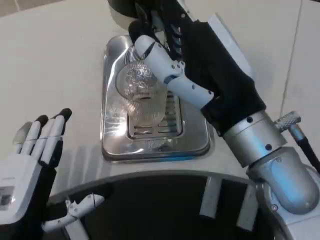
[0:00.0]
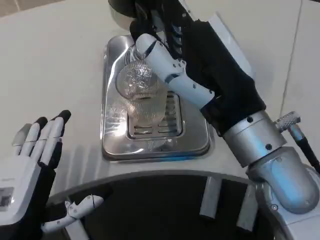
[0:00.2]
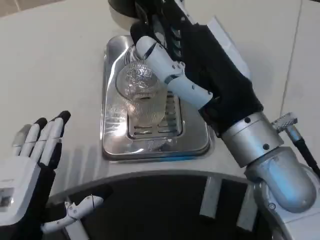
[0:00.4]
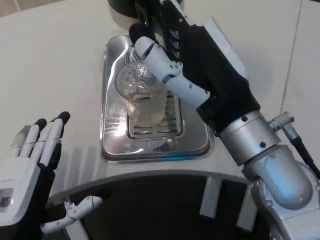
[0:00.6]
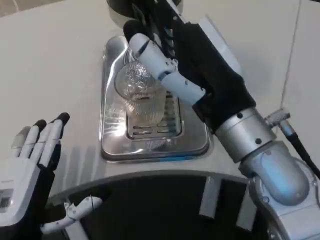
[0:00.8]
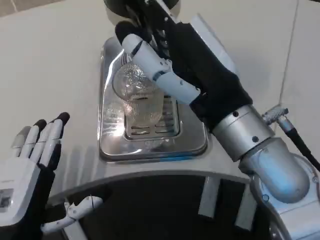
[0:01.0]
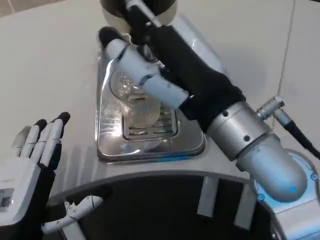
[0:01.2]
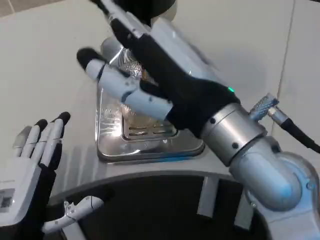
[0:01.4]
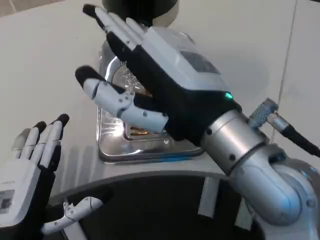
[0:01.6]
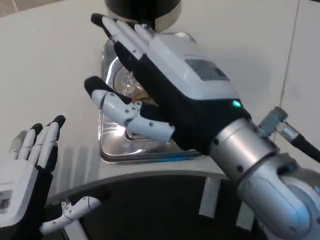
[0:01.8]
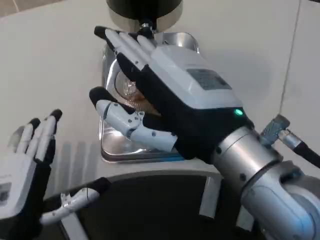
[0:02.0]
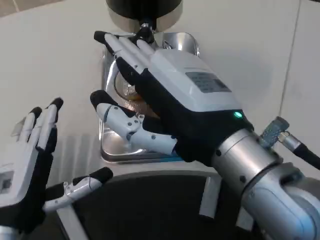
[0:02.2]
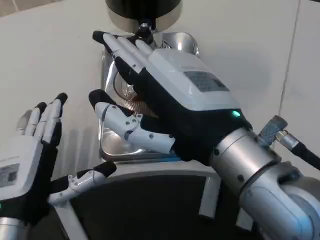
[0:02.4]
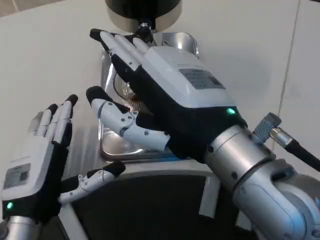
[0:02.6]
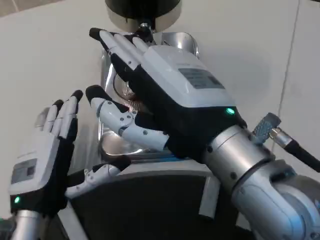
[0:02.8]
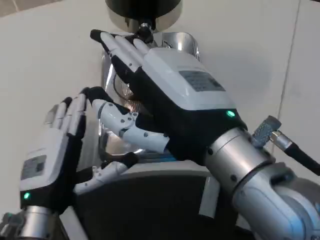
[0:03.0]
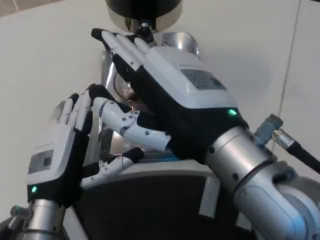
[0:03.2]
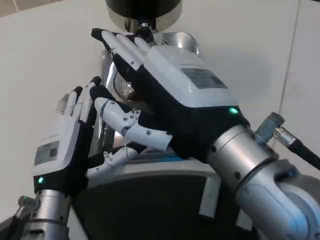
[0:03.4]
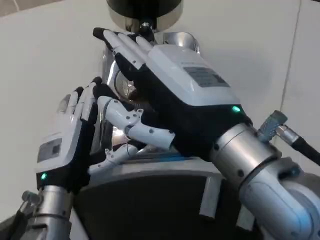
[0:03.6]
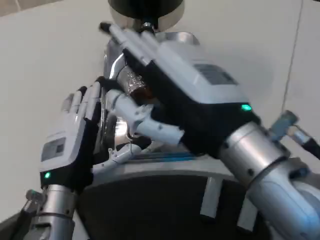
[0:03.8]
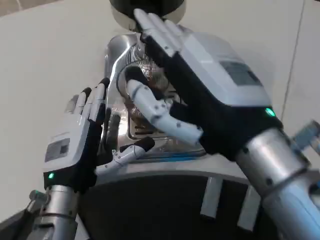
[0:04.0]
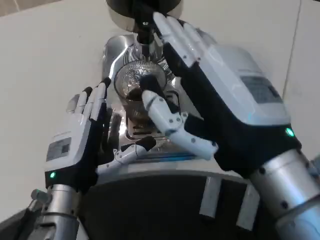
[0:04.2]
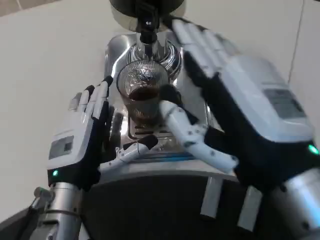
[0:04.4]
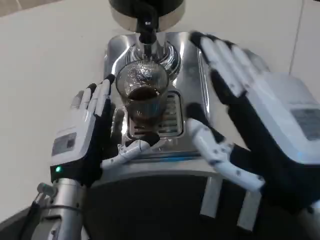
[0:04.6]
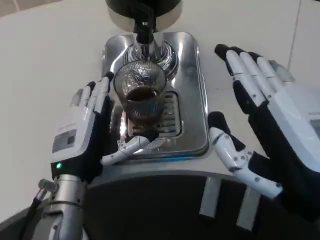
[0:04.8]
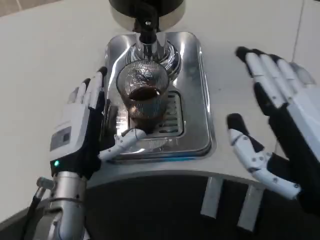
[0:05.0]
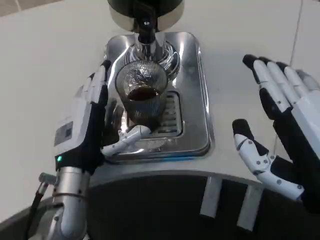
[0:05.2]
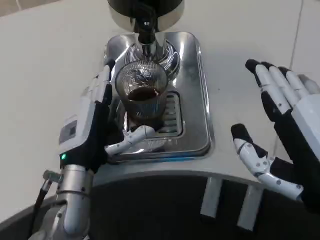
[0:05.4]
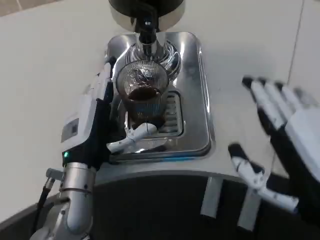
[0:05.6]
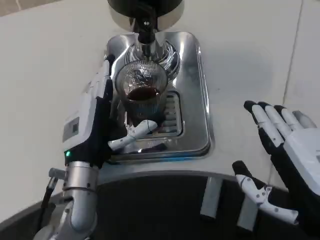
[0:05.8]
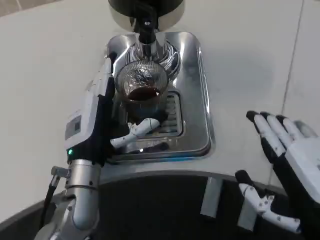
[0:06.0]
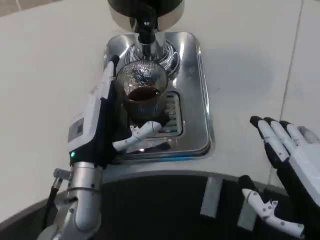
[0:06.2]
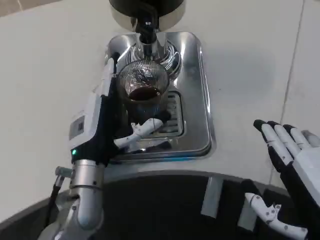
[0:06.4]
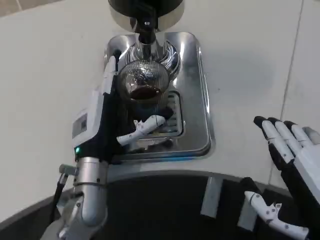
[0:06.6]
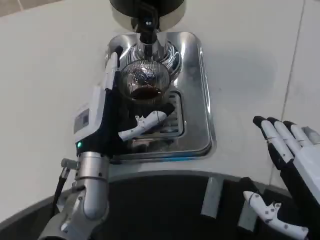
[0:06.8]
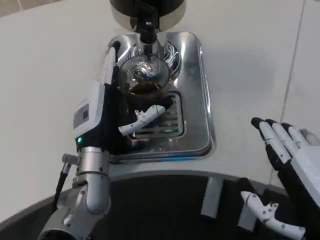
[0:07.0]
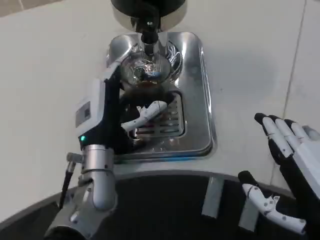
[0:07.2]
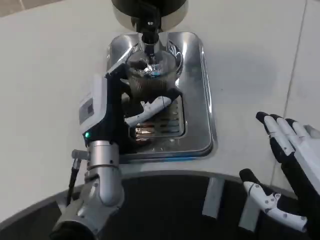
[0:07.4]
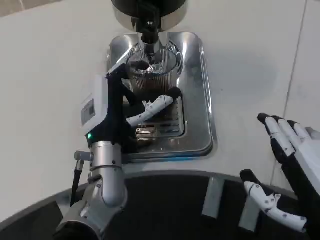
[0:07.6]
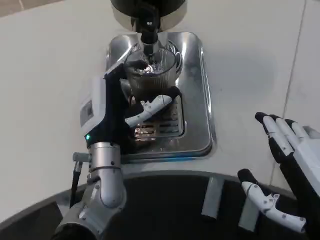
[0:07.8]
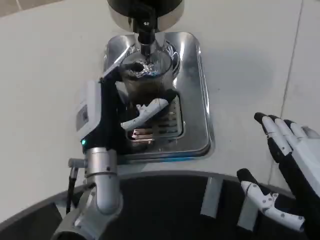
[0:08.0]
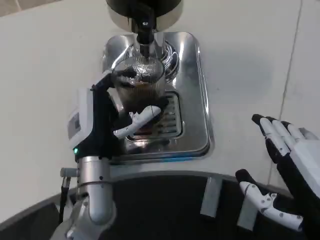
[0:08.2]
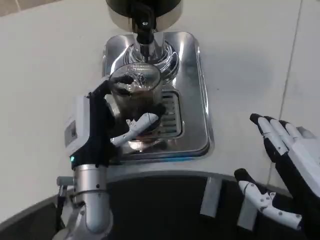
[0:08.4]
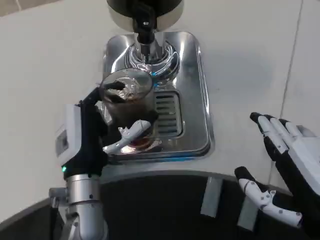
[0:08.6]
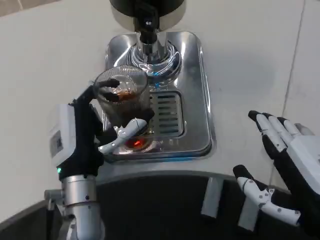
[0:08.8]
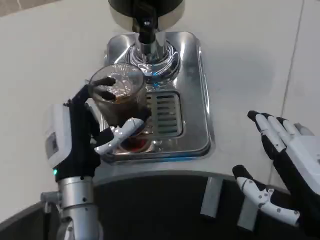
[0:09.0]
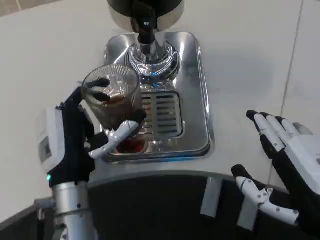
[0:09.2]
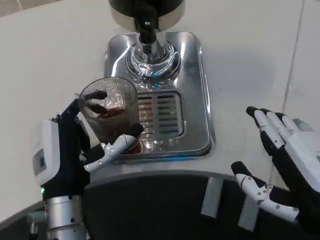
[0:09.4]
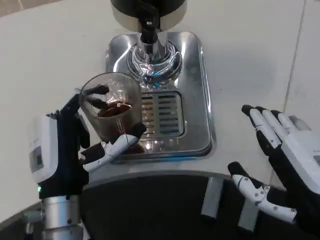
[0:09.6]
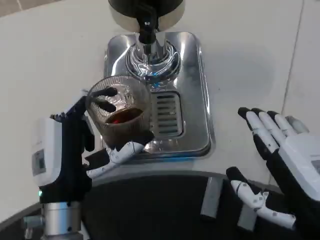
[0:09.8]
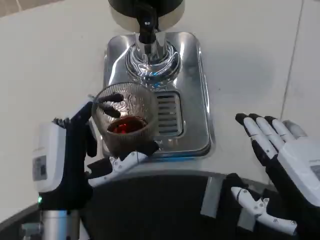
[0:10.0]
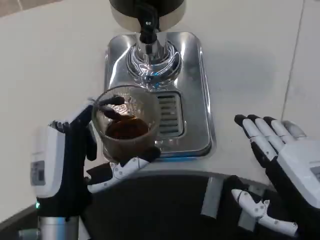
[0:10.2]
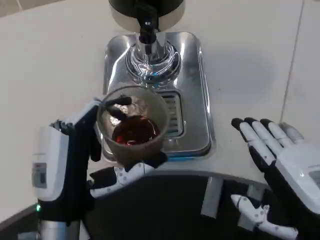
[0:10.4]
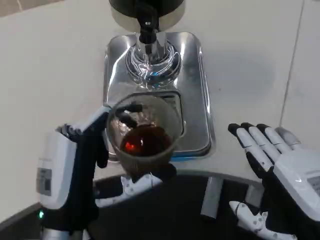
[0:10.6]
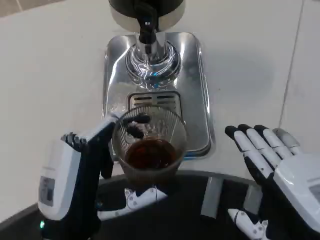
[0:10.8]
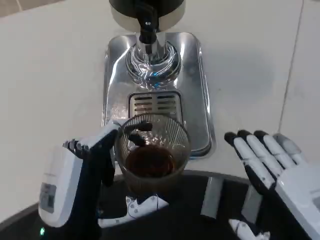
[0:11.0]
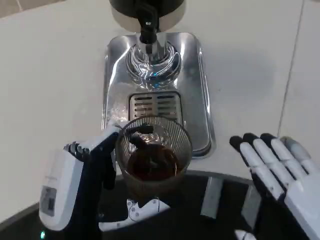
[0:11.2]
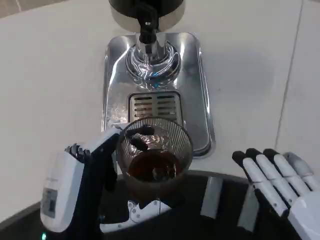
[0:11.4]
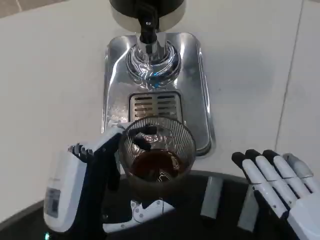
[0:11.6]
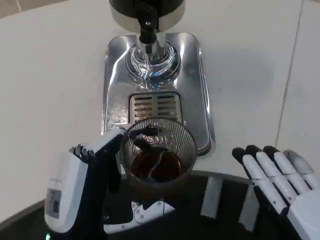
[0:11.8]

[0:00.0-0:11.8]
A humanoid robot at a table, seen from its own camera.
Task of the whole recording: Grasp the cup under the faucet to collect the drink, then remove the cup.
0:01.4 to 0:03.0: The left hand heads forward, covering some 5 cm.
0:03.0 to 0:04.4: The right hand changes place by roughly 5 cm.
0:04.4 to 0:06.0: The right hand goes approximately 10 cm to the right and downward.
0:07.4 to 0:08.8: The left hand moves roughly 5 cm.
0:08.8 to 0:10.4: The left hand is displaced backward by about 10 cm.
0:10.4 to 0:11.8: The right hand travels backward by some 5 cm.

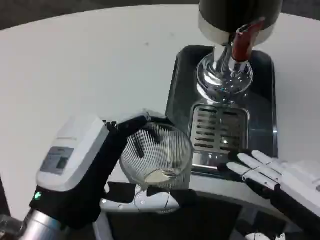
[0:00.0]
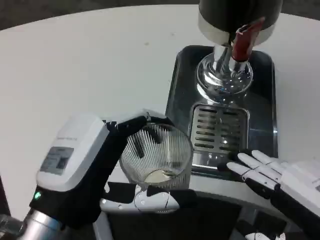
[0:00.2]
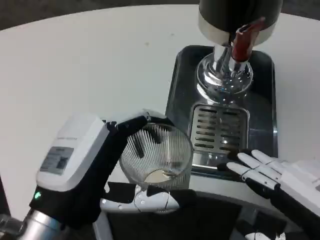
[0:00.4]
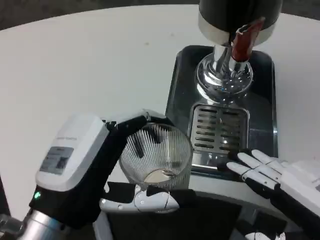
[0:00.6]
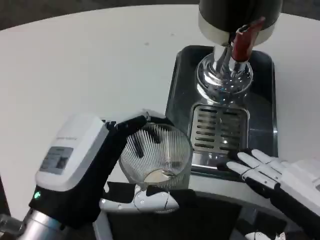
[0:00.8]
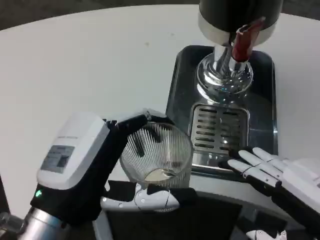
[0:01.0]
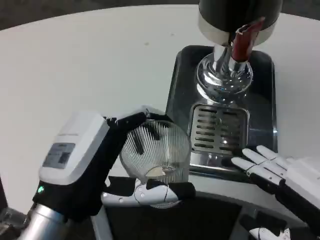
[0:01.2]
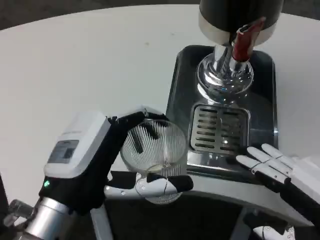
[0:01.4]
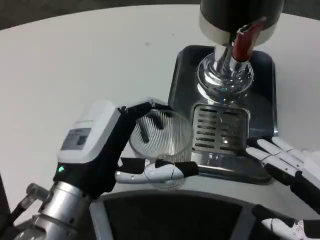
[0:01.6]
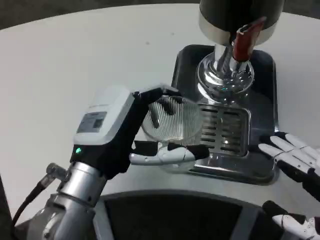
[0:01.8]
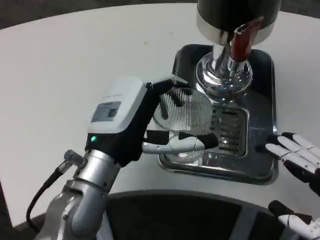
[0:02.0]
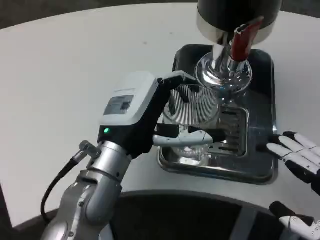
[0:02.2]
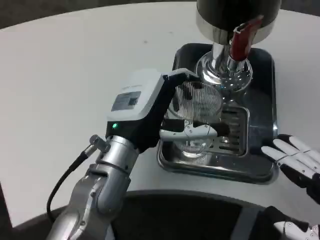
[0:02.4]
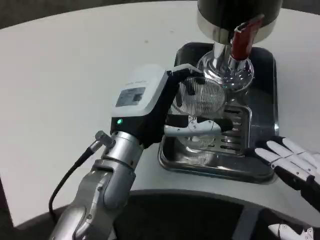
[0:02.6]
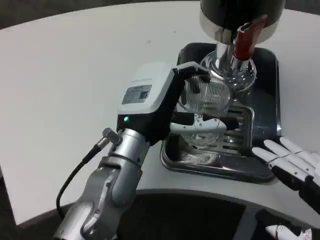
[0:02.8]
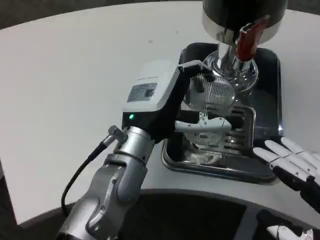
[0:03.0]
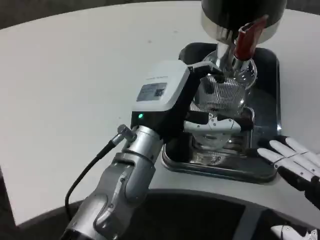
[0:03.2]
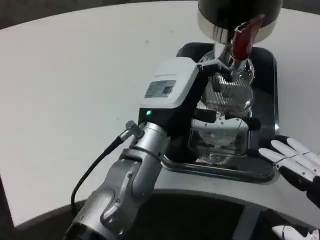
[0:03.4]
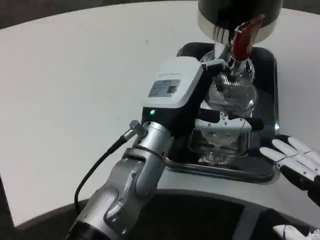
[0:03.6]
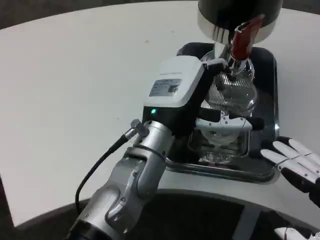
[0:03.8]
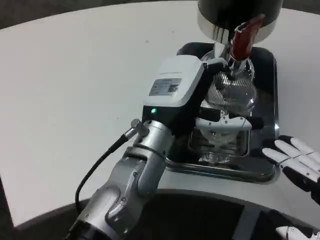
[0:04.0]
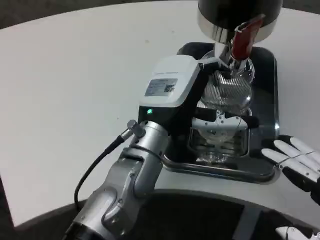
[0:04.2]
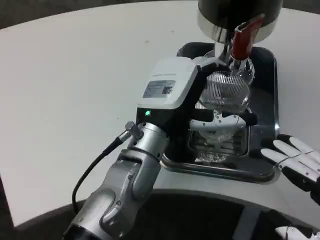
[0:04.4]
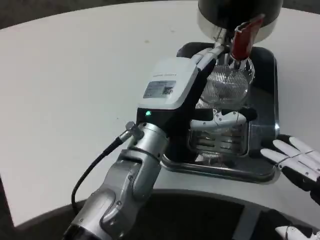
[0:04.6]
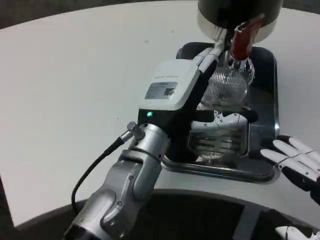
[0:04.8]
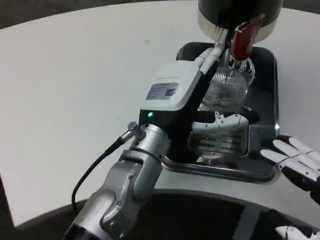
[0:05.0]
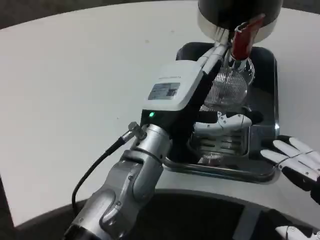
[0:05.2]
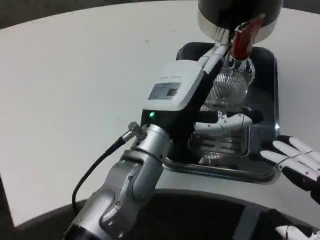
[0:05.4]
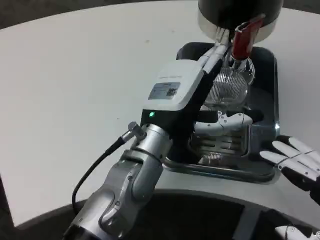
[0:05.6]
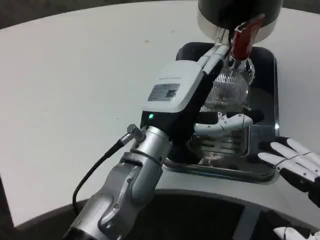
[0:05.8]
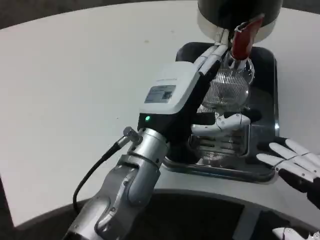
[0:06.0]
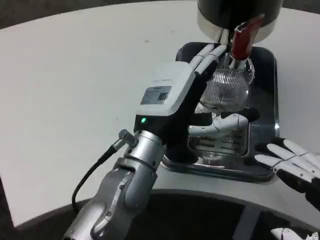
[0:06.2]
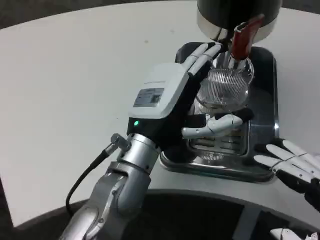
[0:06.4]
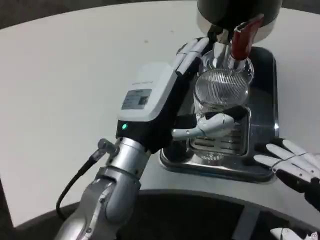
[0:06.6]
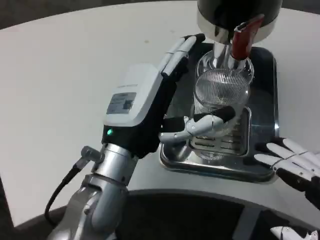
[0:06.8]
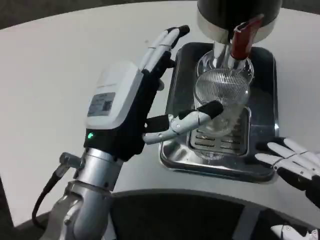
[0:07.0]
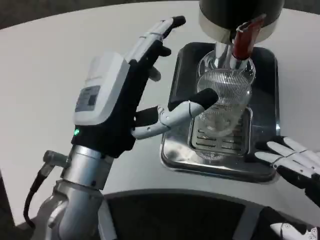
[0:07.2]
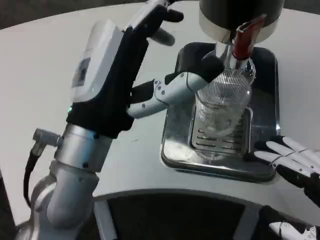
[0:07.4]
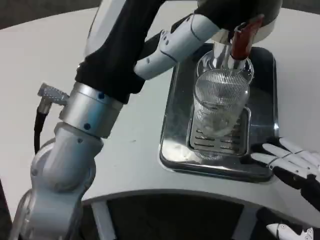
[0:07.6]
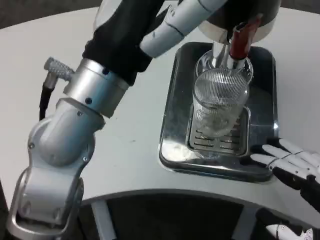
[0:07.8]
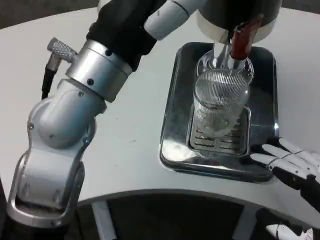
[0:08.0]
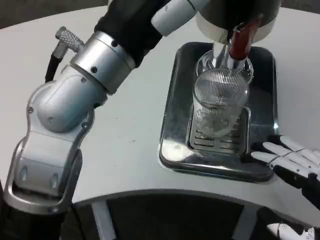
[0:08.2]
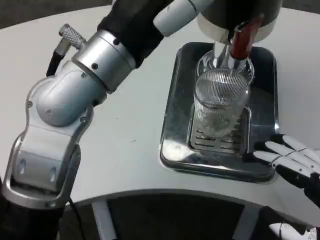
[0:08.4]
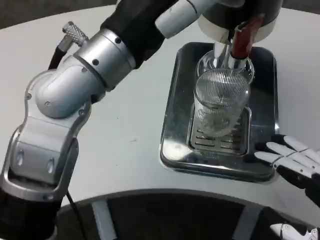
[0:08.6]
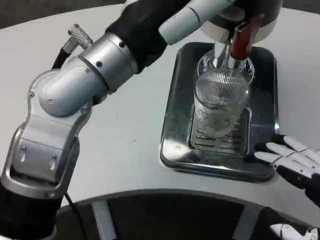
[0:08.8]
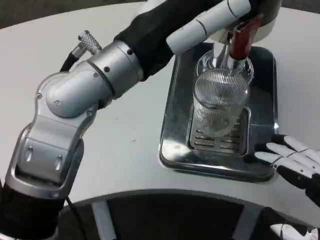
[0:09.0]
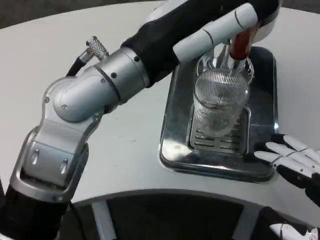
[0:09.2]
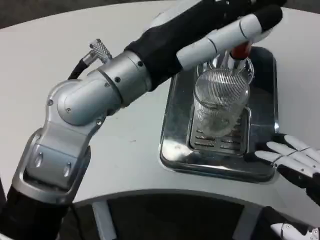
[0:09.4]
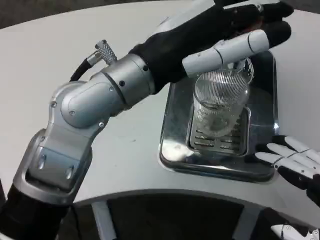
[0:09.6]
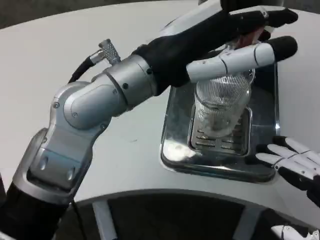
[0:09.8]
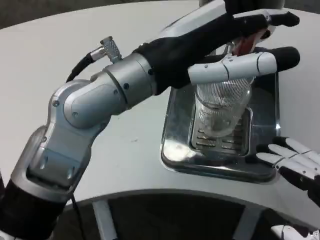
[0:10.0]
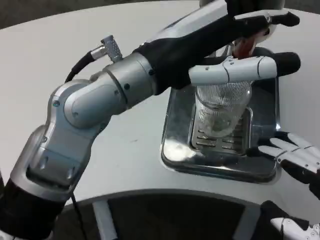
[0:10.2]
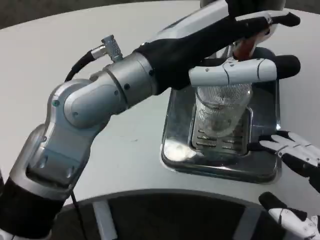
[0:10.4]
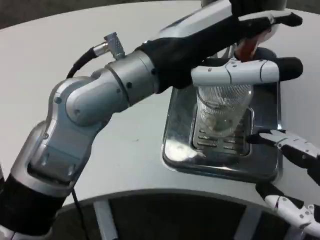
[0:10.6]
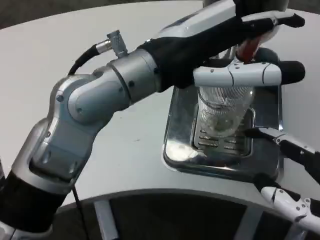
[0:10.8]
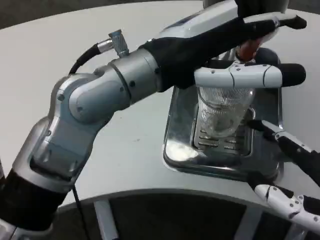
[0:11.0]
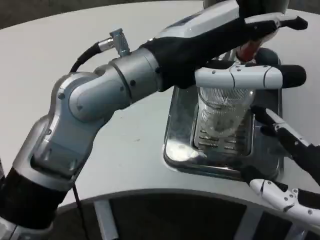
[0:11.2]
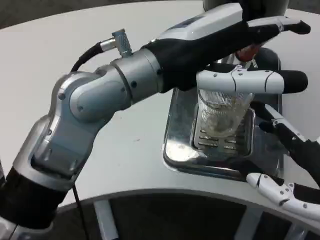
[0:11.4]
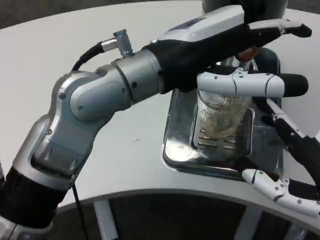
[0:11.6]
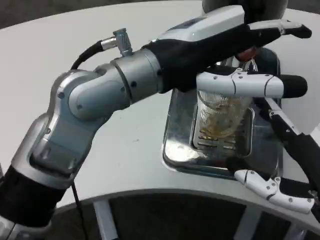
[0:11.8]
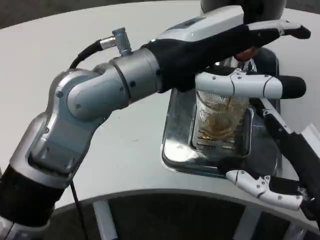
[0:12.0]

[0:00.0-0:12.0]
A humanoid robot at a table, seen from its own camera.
Task of the whole recording: Grasp the cup under the faucet to collect the drink, then remove the cup.
0:00.0 to 0:01.6: The left hand moves approximately 5 cm.
0:01.6 to 0:03.0: The left hand shifts roughly 10 cm forward and to the right.
0:04.4 to 0:06.0: The hands stay close to where they were, moving slightly.
0:06.0 to 0:07.6: The left hand travels upward and backward by roughly 10 cm.
0:07.6 to 0:09.0: The left hand moves roughly 5 cm.
0:10.4 to 0:12.0: The right hand moves to the left, roughly 5 cm.
